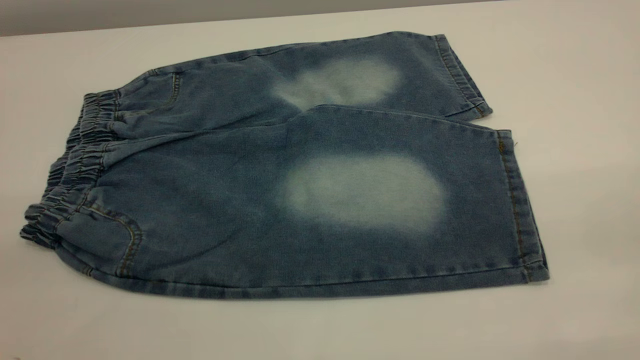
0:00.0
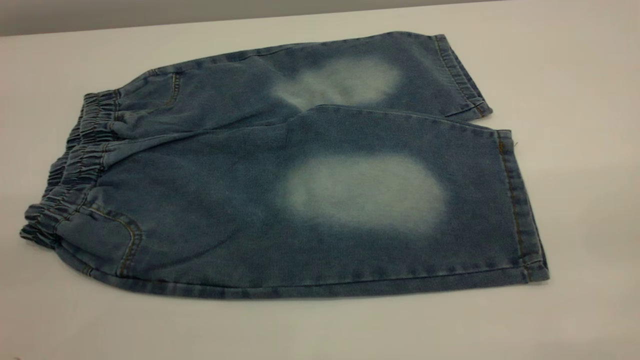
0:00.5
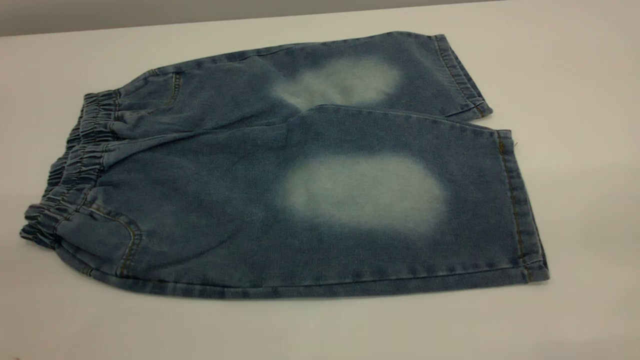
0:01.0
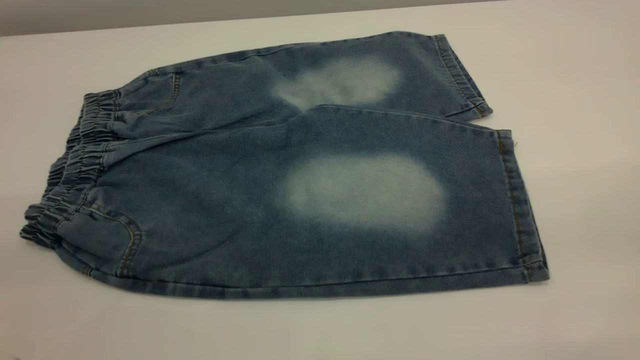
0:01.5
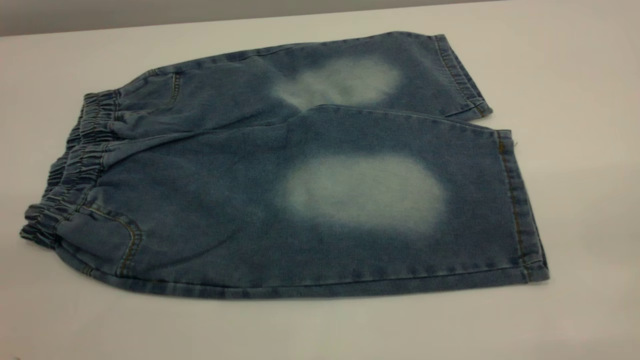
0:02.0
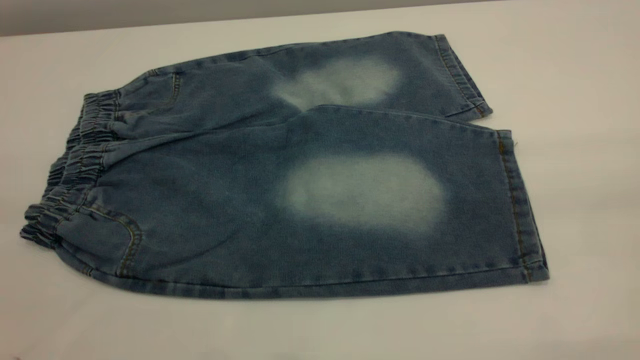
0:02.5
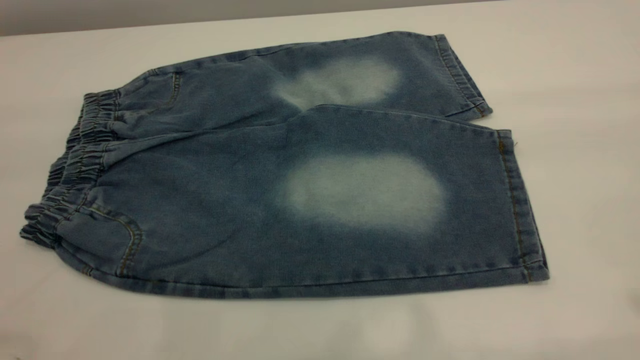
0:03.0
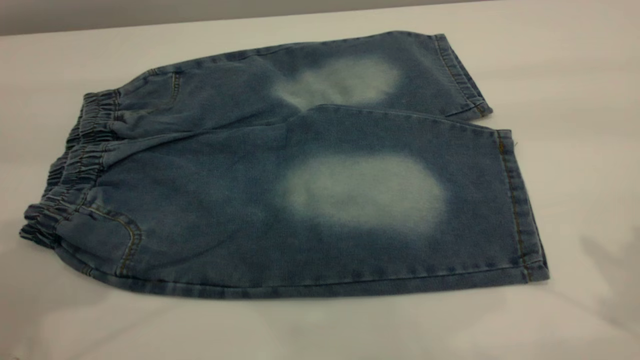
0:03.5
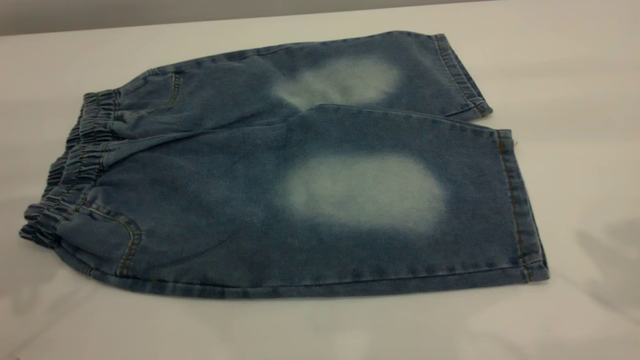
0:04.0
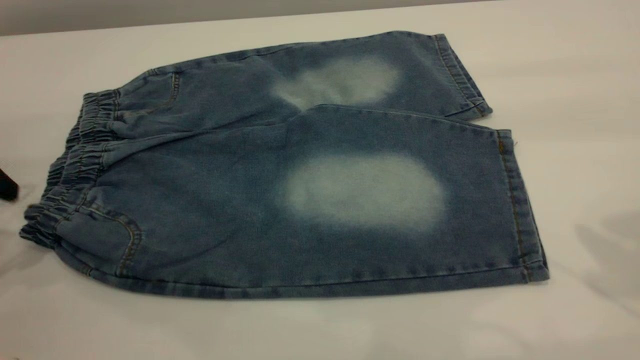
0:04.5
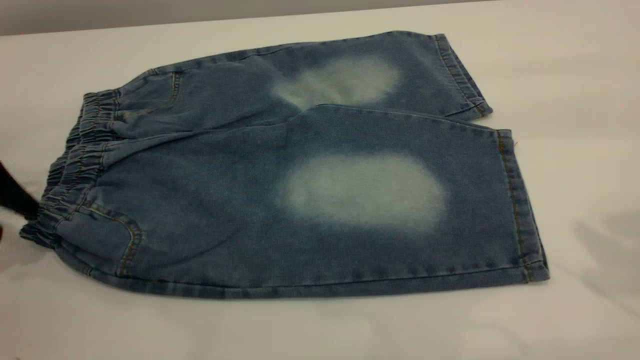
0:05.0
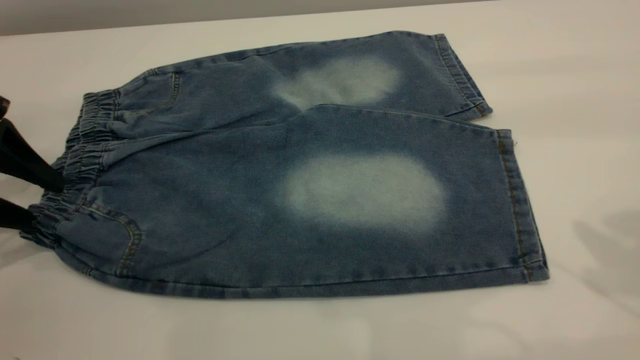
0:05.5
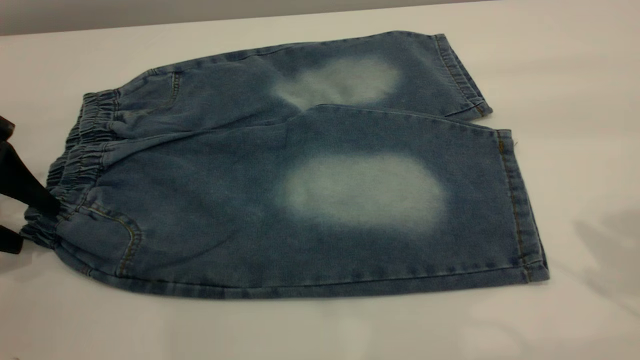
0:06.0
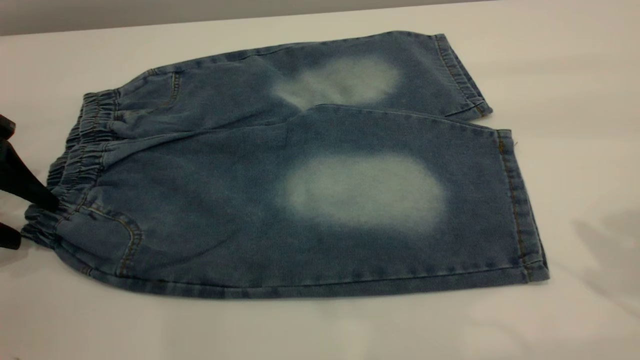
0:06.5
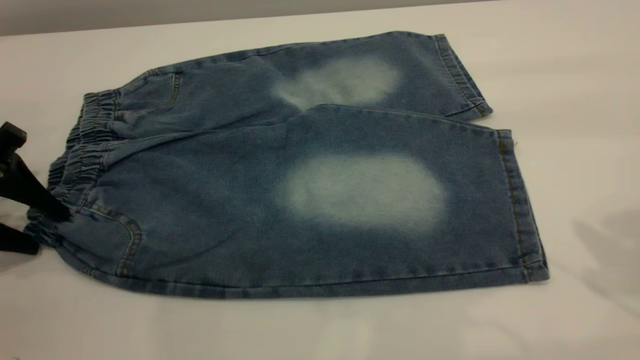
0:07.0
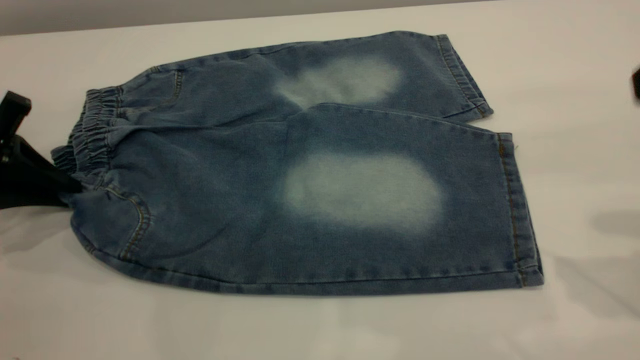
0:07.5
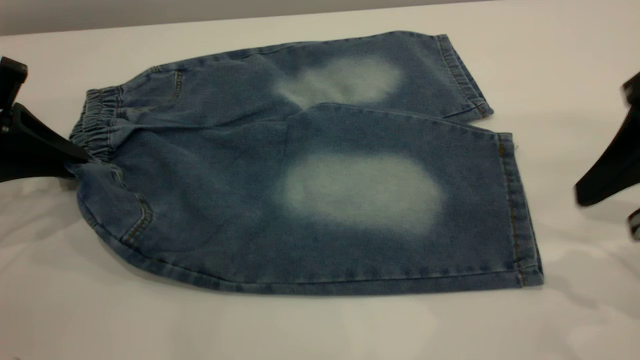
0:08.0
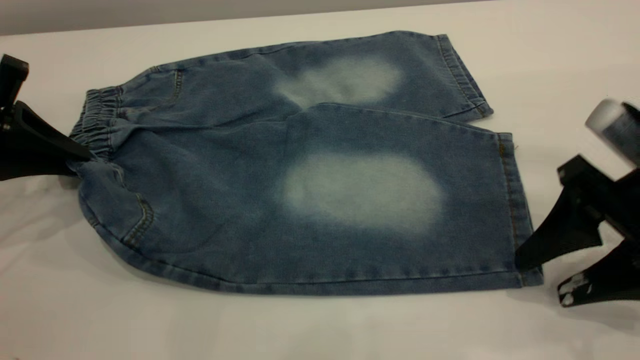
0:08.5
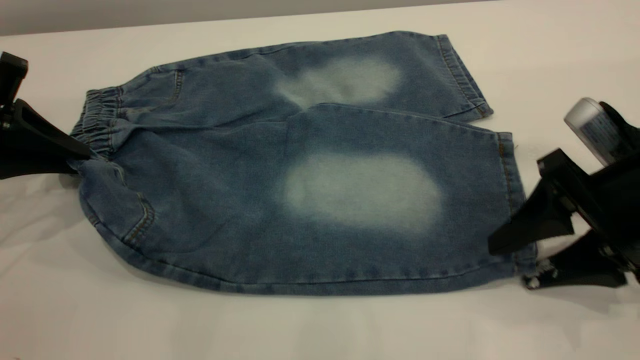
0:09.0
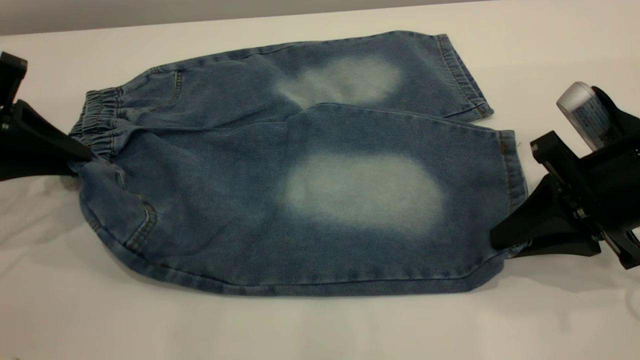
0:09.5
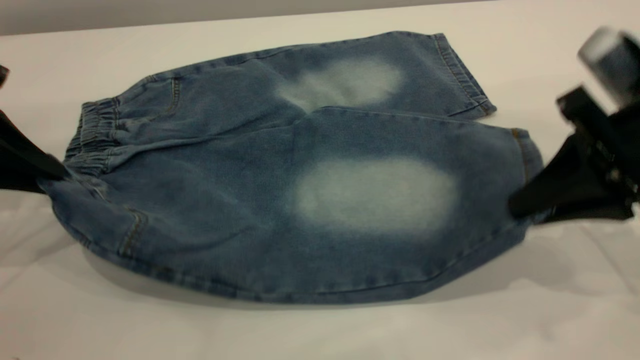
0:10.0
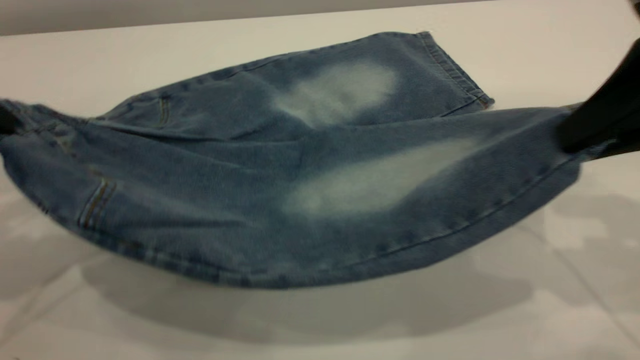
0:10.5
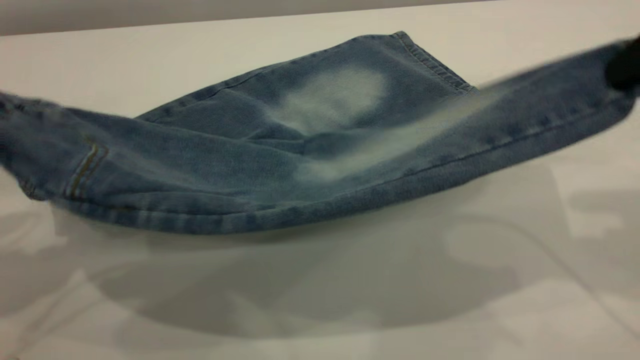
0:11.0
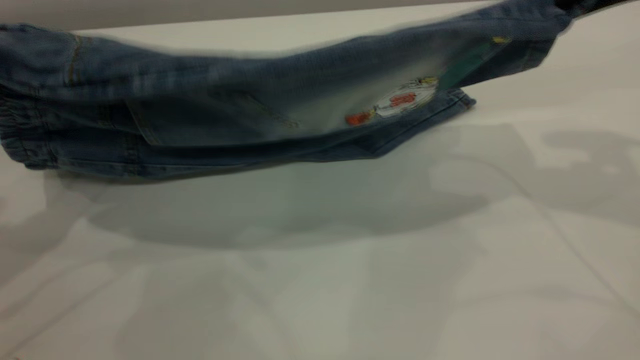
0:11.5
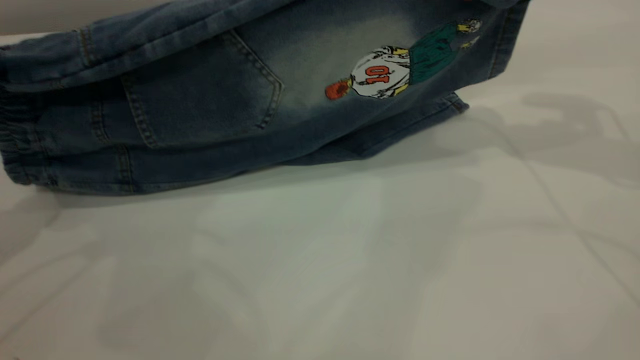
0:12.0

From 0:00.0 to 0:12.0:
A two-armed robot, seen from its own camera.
From 0:00.0 to 0:02.0: The two grippers keep their place.
From 0:04.0 to 0:06.0: The left gripper moves downward, about 10 cm.
From 0:06.0 to 0:08.0: The right gripper goes about 15 cm downward. The left gripper closes up.
From 0:08.0 to 0:10.0: The right gripper goes downward and returns, some 10 cm each way, and closes up.
From 0:10.0 to 0:12.0: The right gripper heads forward and upward, covering approximately 15 cm. The left gripper is displaced upward by about 5 cm.

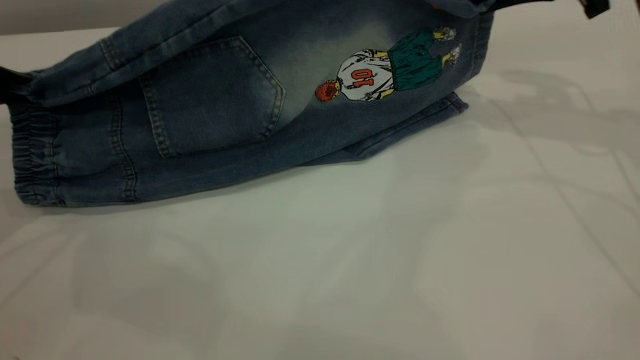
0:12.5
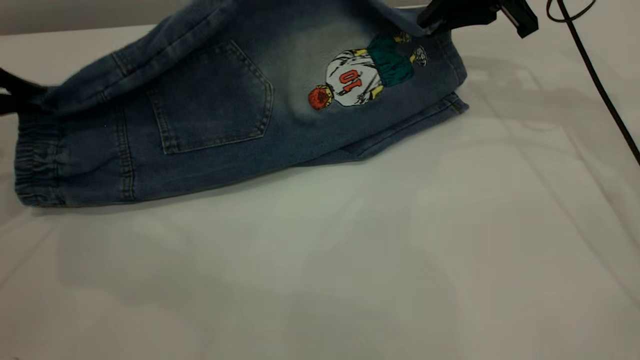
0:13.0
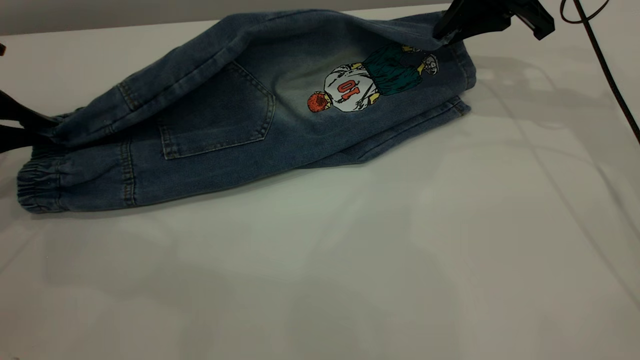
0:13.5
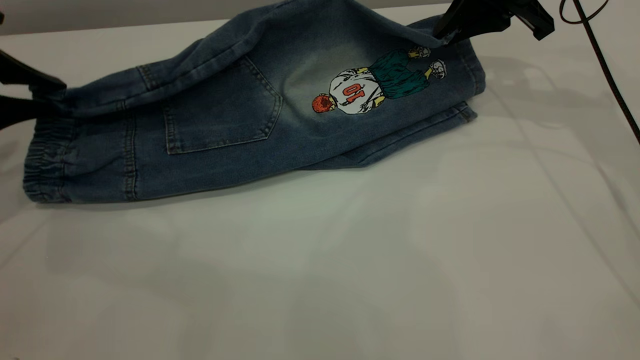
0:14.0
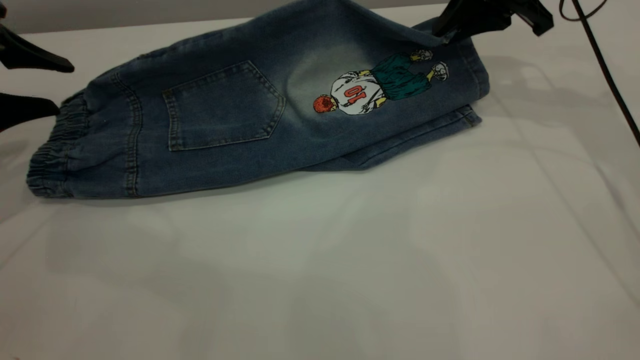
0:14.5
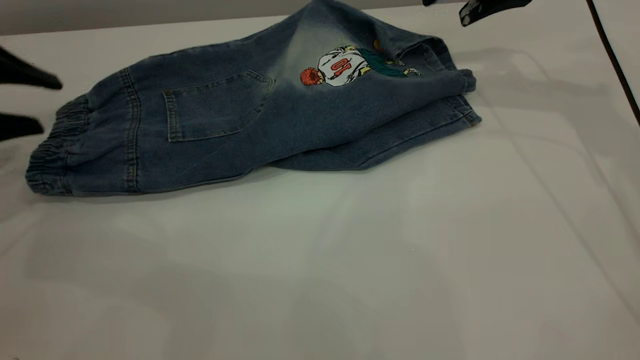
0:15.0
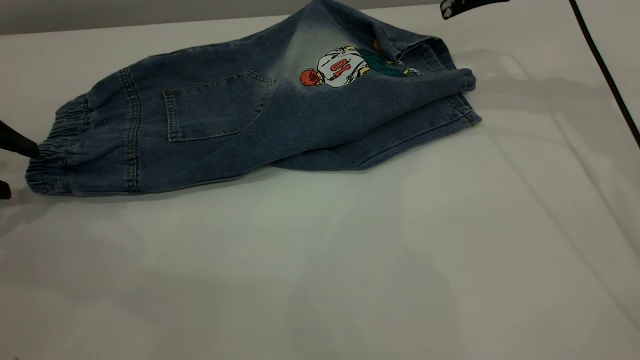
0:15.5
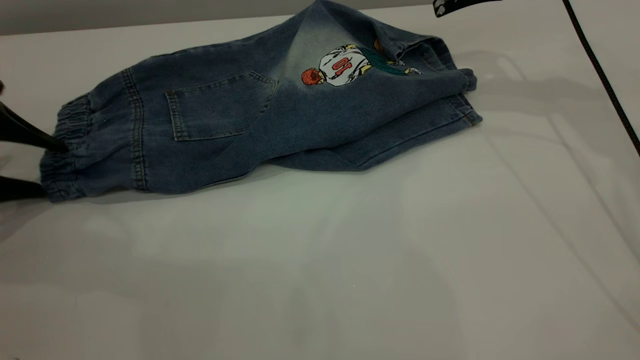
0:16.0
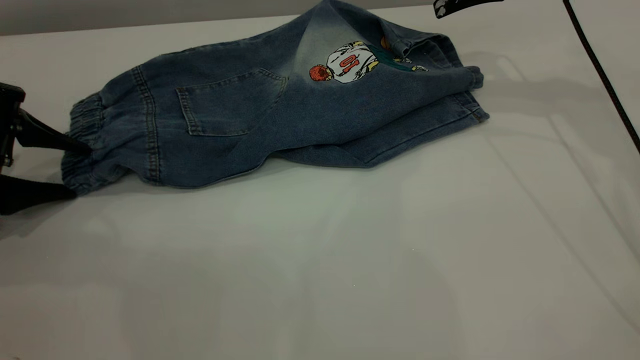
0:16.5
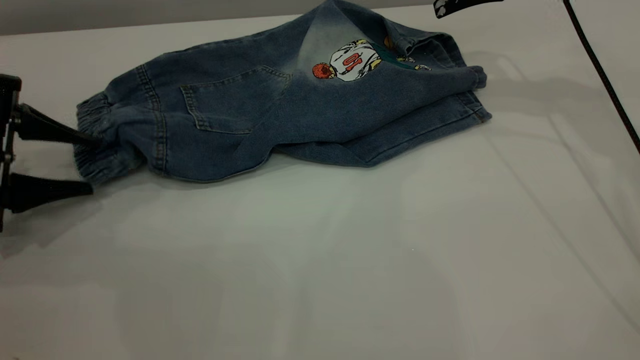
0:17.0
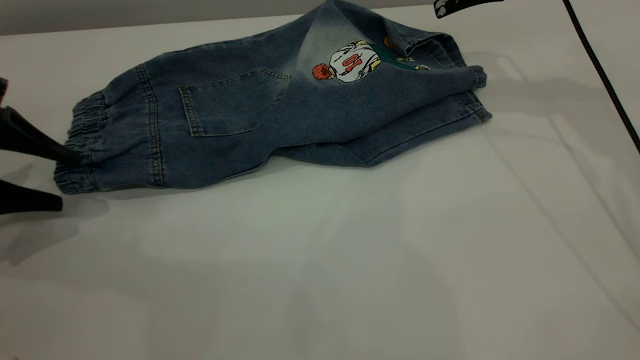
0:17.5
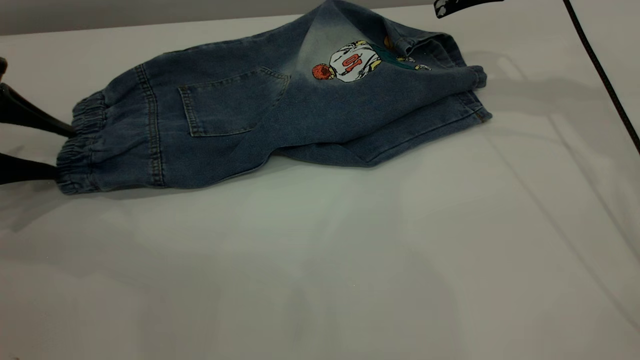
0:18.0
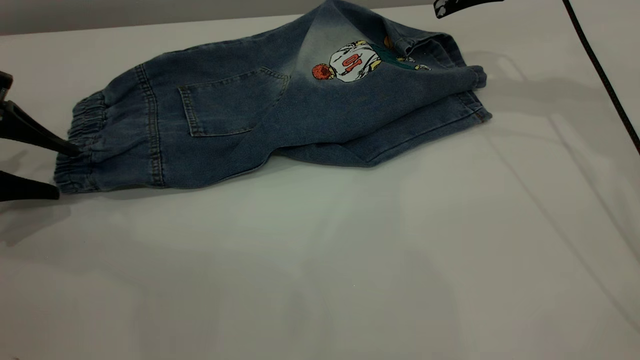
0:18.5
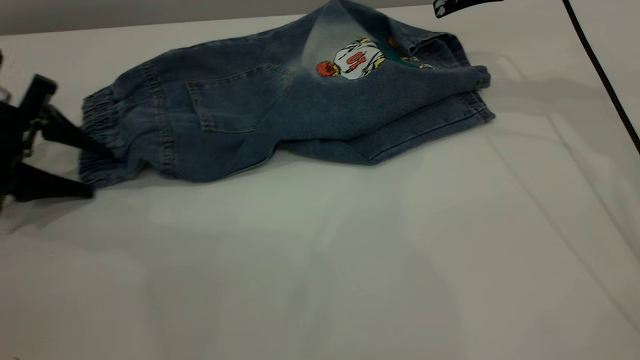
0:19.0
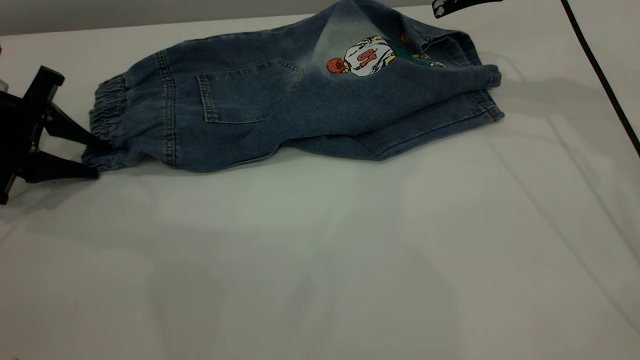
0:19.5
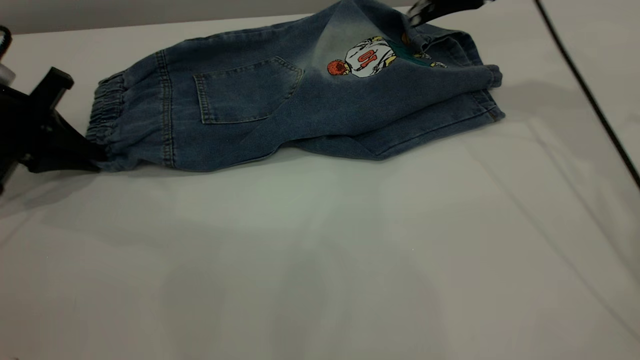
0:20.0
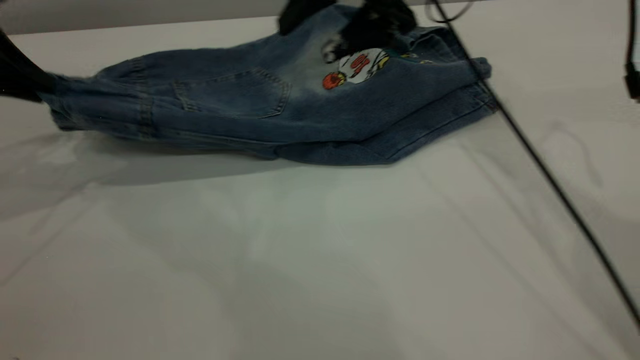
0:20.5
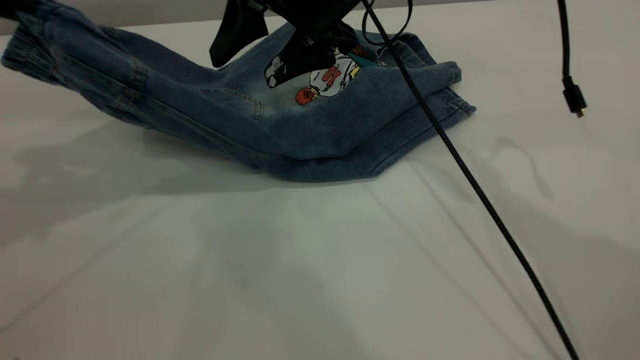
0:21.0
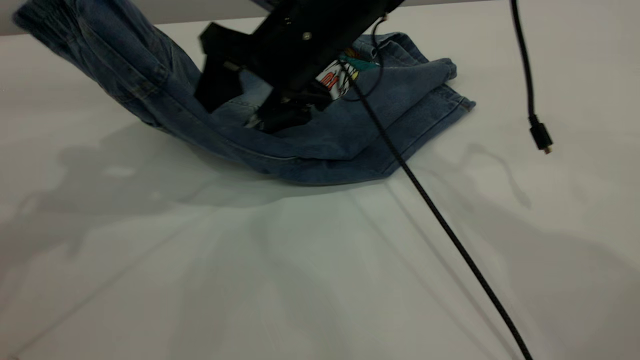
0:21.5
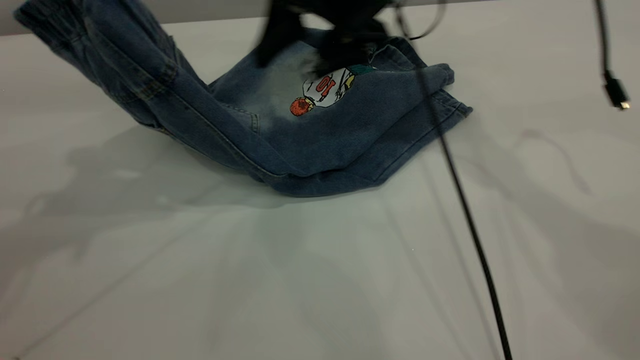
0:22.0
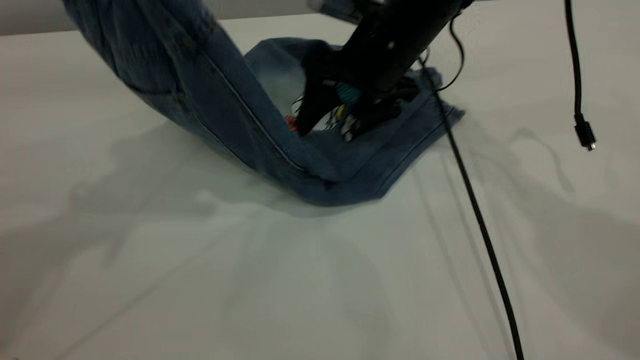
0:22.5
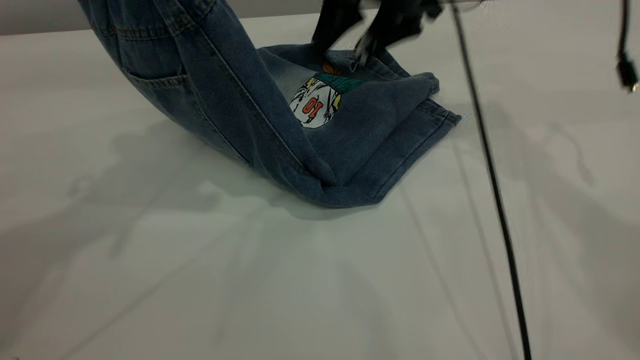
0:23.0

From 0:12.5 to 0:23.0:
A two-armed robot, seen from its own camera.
Step, from 0:12.5 to 0:14.5: Fold the bottom of the pants upward.
From 0:12.5 to 0:14.5: The left gripper opens; the right gripper shifts by about 5 cm.
From 0:14.5 to 0:16.5: The right gripper opens, while the left gripper goes approximately 5 cm downward.
From 0:19.0 to 0:21.0: The right gripper goes roughly 20 cm to the left, while the left gripper is displaced upward by approximately 20 cm, and closes its fingers.
From 0:21.0 to 0:23.0: The left gripper moves to the right and upward, about 10 cm; the right gripper travels to the right by approximately 10 cm.
